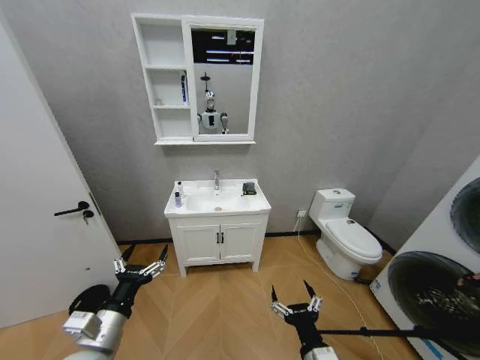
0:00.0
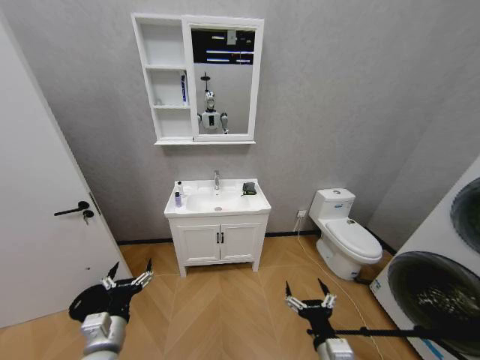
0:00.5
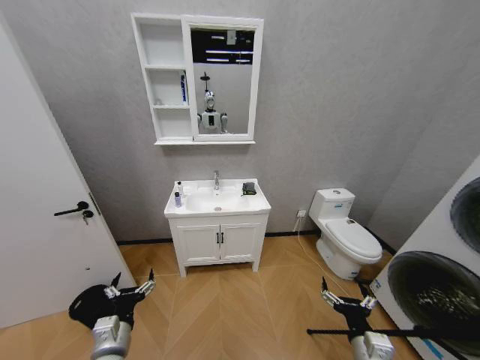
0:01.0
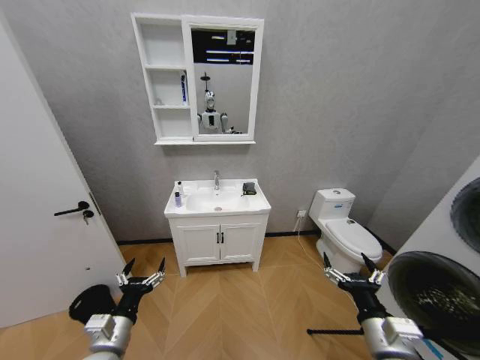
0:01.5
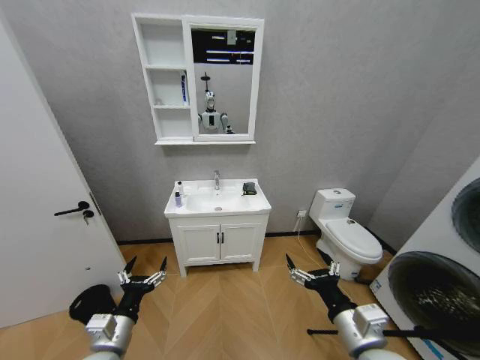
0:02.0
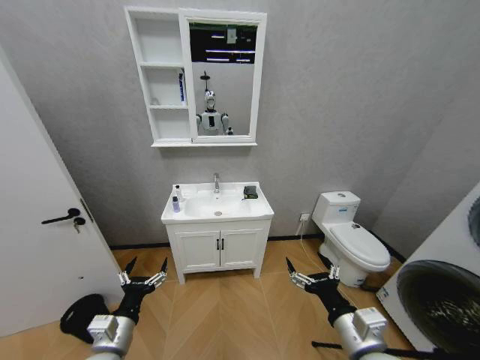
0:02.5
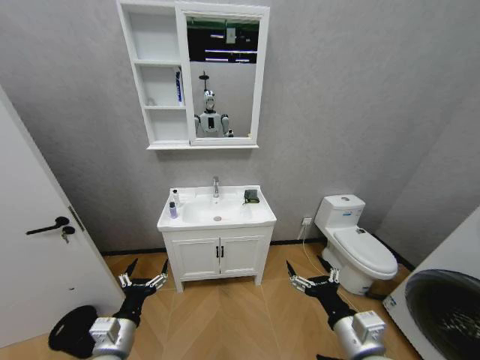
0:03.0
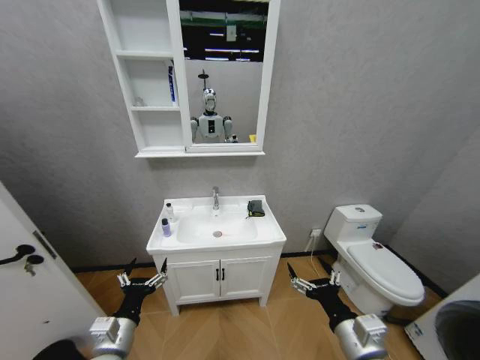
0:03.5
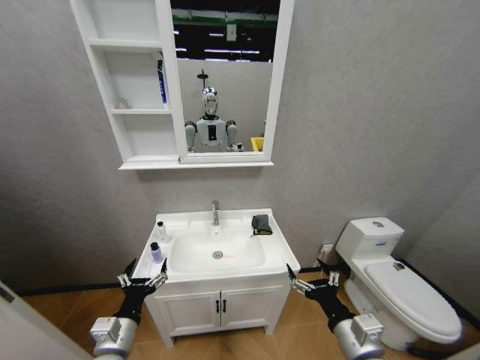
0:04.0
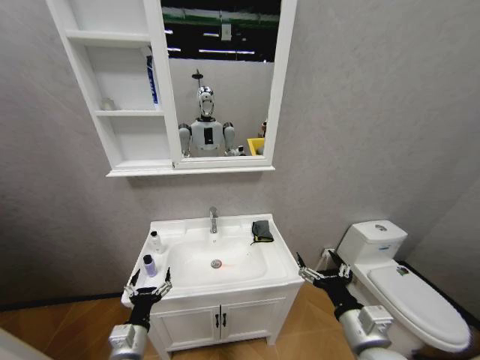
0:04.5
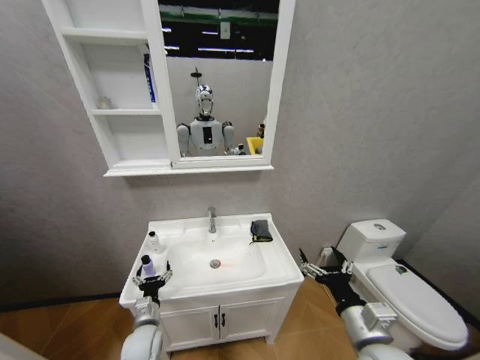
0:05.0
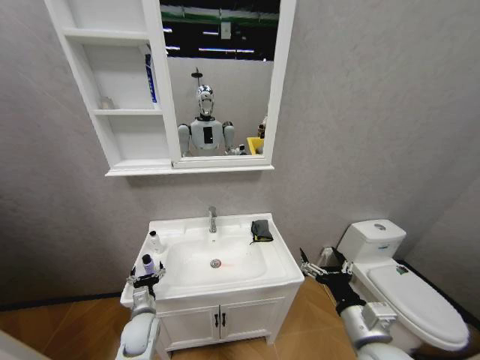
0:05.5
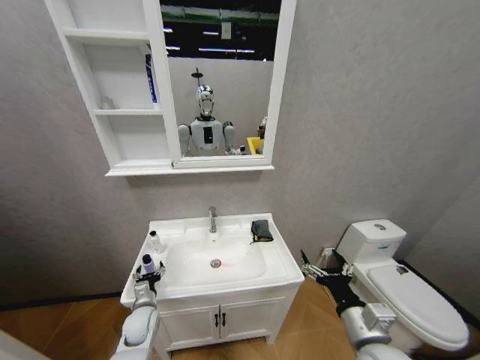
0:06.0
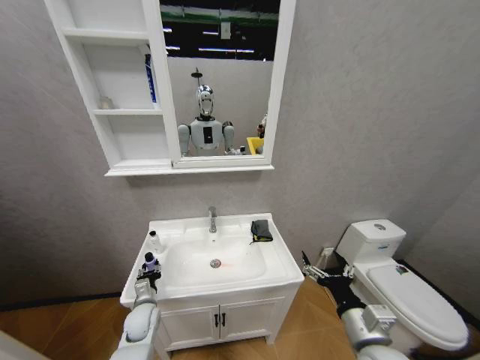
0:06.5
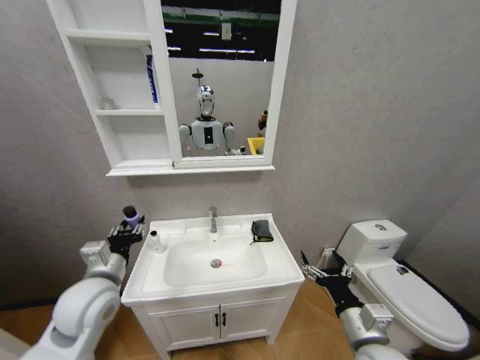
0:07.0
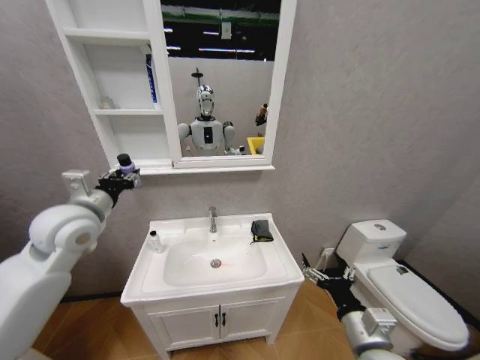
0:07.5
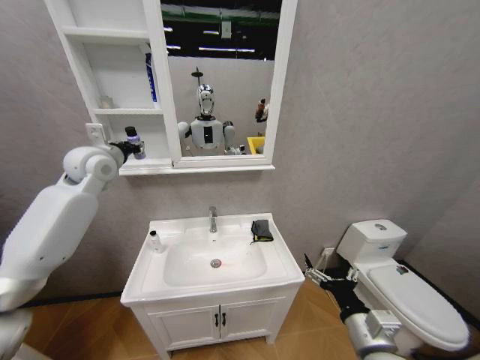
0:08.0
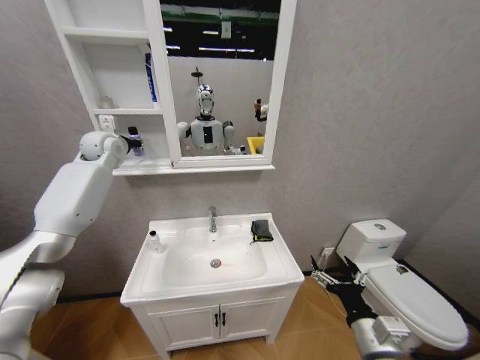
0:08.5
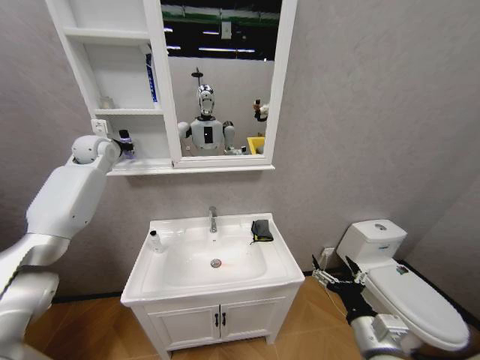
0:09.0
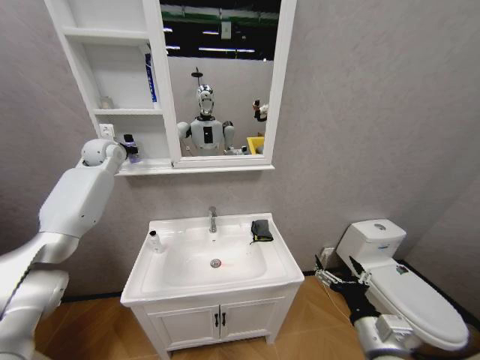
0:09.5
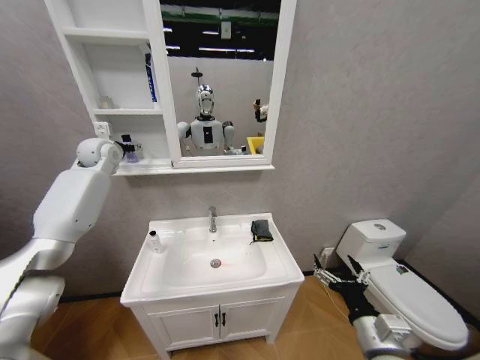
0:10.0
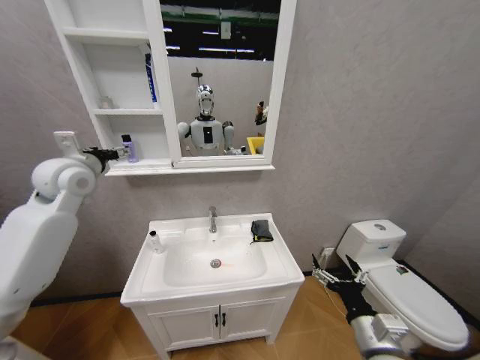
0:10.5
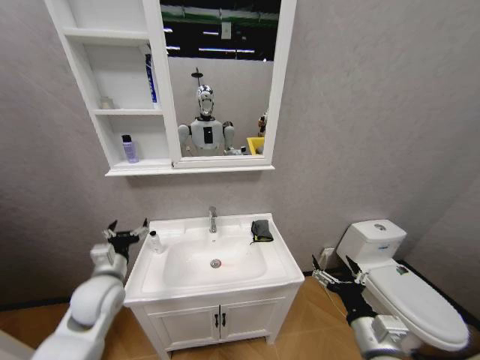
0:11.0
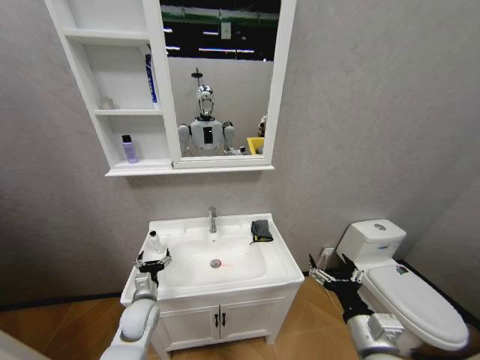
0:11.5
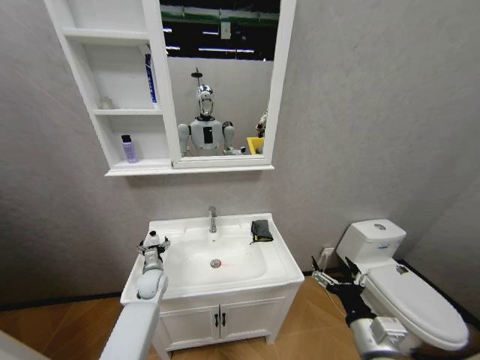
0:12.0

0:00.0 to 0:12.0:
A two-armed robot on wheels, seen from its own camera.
Task of the whole recording: Move facial cleanser and shampoo from washbasin to cabinet, then wipe washbasin with towel.
0:04.0 to 0:06.0: The left gripper shifts roughly 20 cm forward and downward.
0:06.0 to 0:08.0: The left gripper goes roughly 50 cm upward, and closes up.
0:08.0 to 0:10.0: The left gripper shifts some 10 cm forward, and opens.
0:10.0 to 0:12.0: The left gripper shifts approximately 40 cm downward.

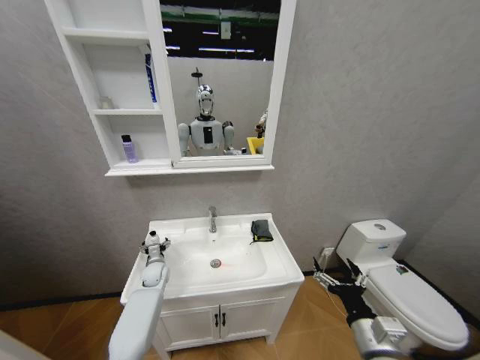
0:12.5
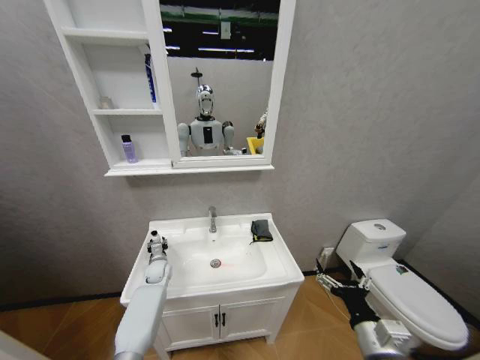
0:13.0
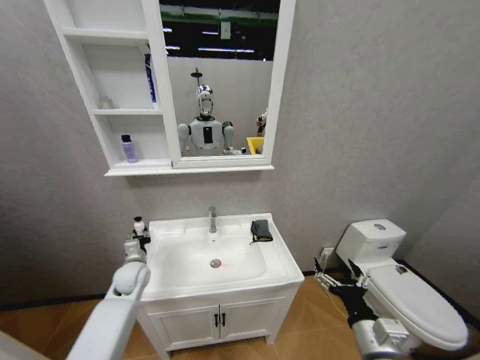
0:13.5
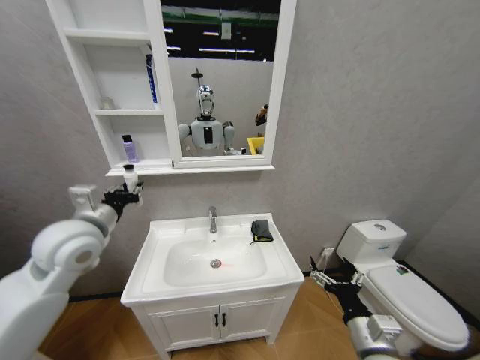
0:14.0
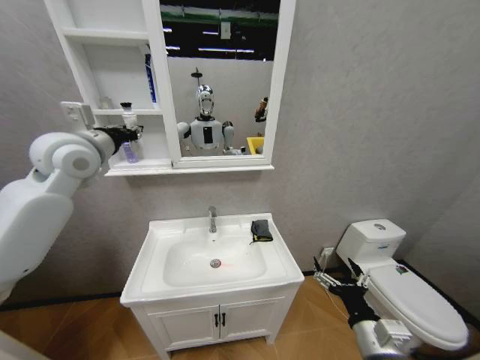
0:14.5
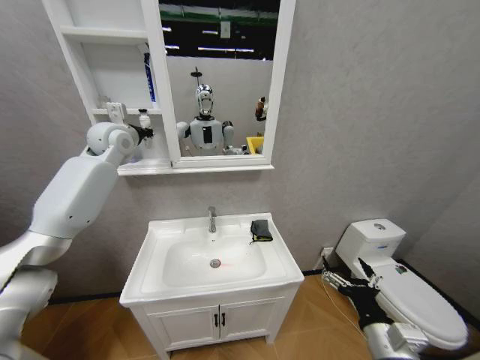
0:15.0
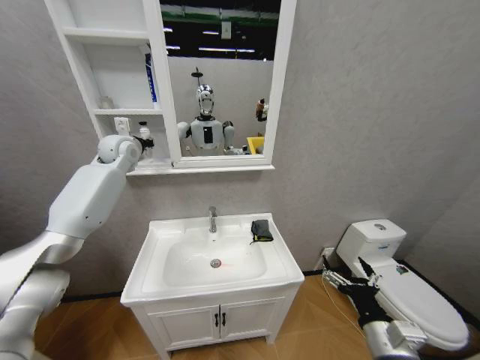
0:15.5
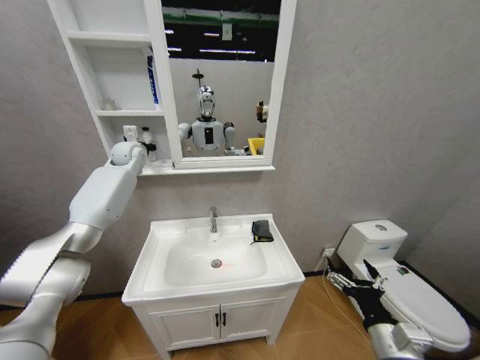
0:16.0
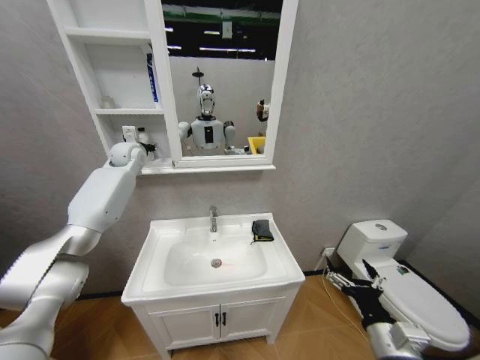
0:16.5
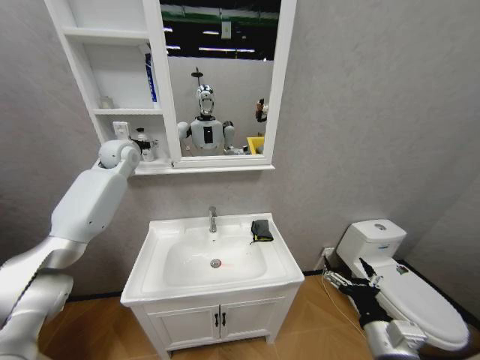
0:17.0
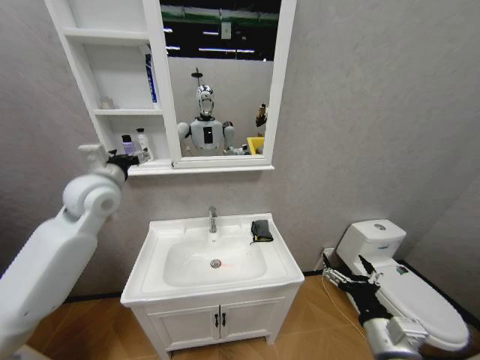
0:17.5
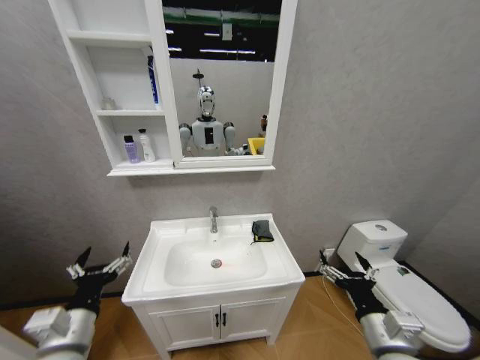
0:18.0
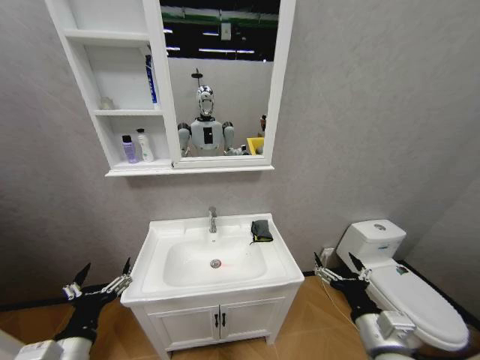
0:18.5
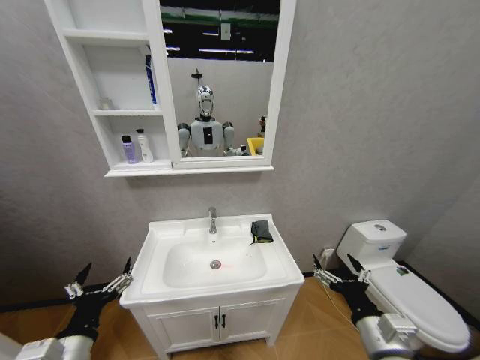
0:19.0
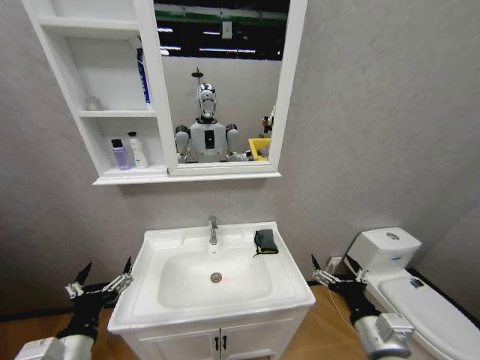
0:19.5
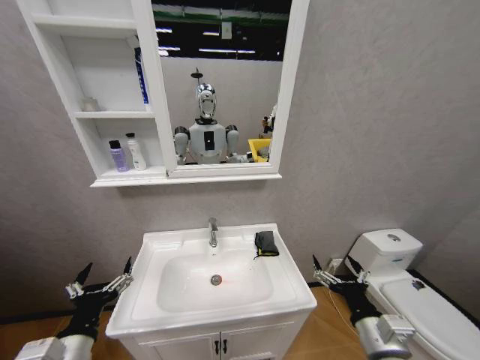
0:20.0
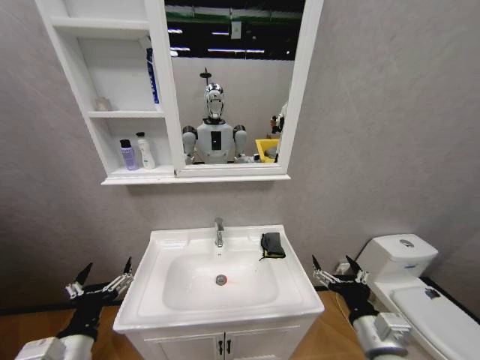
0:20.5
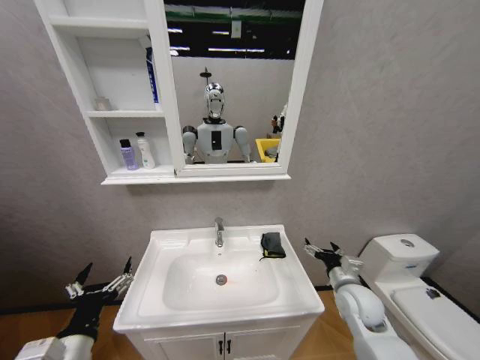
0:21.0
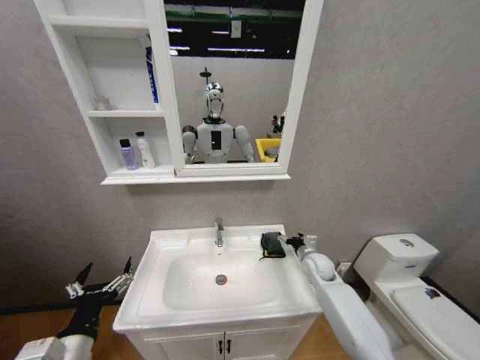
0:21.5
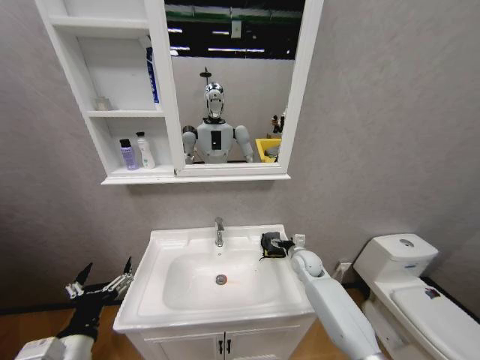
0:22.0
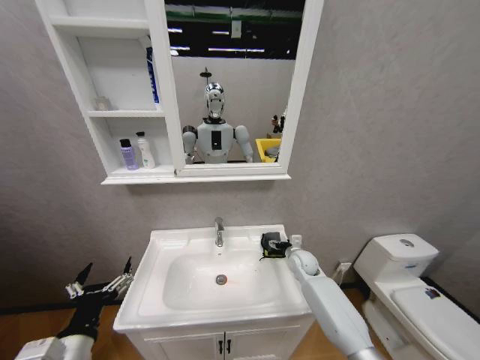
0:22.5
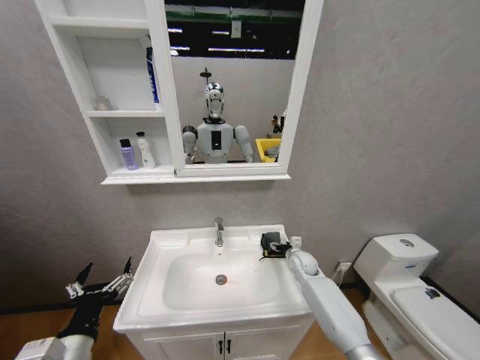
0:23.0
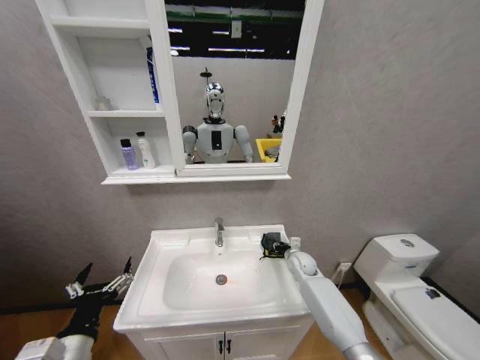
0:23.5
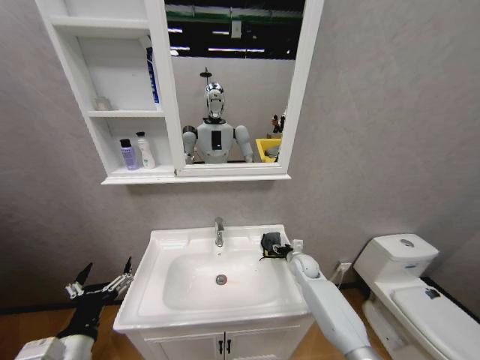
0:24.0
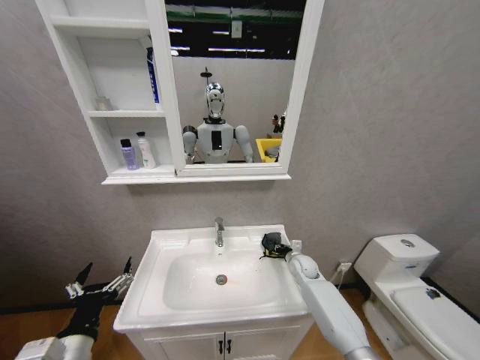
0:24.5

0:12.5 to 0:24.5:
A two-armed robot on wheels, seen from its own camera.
Task of the whole recording: Move facial cleanser and shampoo from washbasin to cabinet, then wipe washbasin with towel.
0:12.5 to 0:14.5: The left gripper shifts about 50 cm upward, and closes up.
0:14.5 to 0:16.5: The left gripper shifts about 20 cm forward.
0:16.5 to 0:18.5: The left gripper goes some 60 cm backward and downward, and opens.
0:20.5 to 0:22.5: The right gripper is displaced forward by roughly 30 cm.
0:22.5 to 0:24.5: The right gripper closes its fingers.

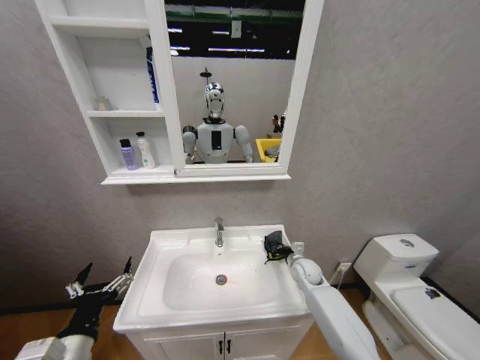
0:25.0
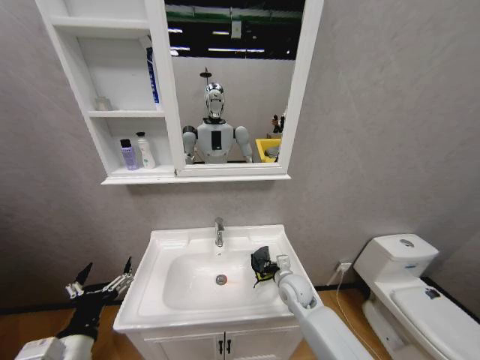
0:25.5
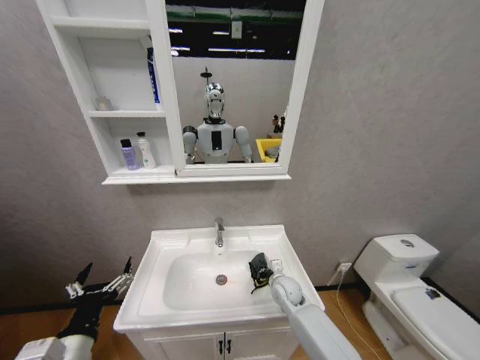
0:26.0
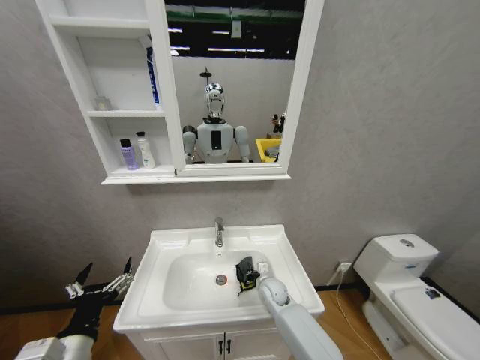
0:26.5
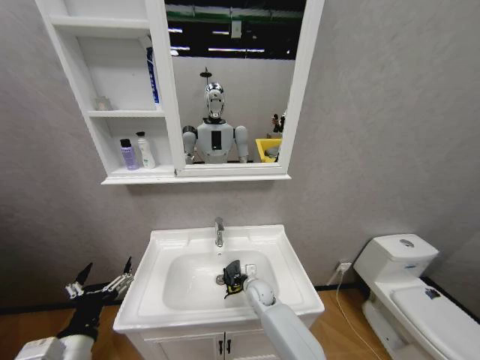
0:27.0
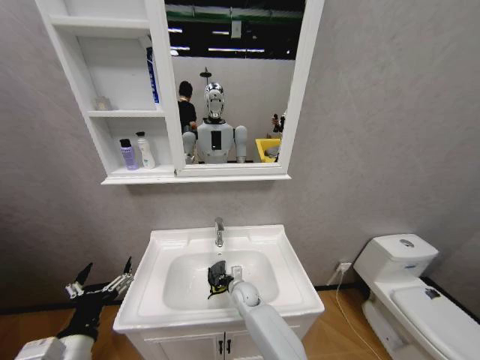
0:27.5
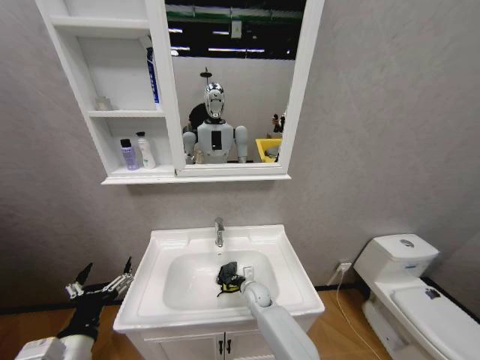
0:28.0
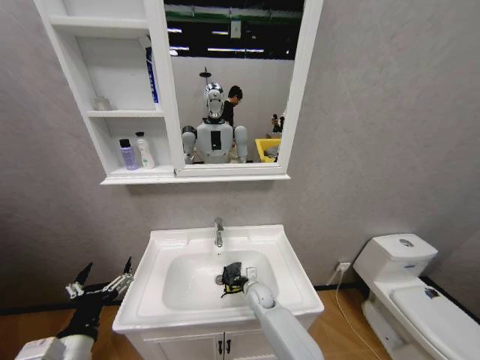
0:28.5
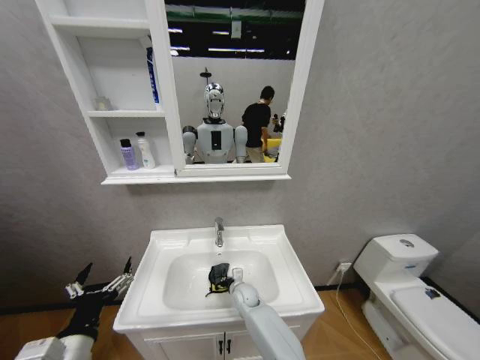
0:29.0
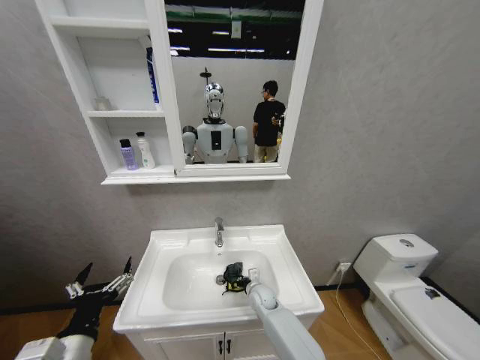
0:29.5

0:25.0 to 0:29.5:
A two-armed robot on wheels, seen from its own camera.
Task of the whole recording: Move facial cleanser and shampoo from washbasin to cabinet, then wipe washbasin with towel.
0:25.0 to 0:27.0: The right gripper is displaced to the left by some 20 cm.
0:27.0 to 0:29.5: The right gripper swings left and right, approximately 5 cm each way, with 3 reversals.
